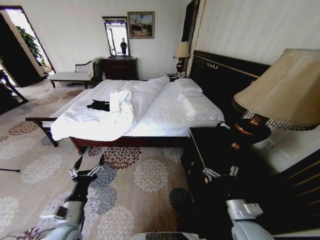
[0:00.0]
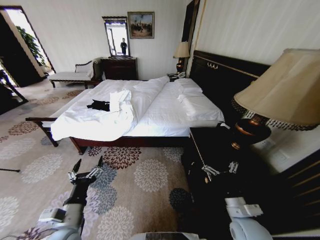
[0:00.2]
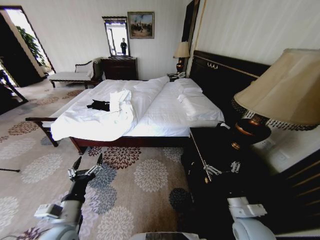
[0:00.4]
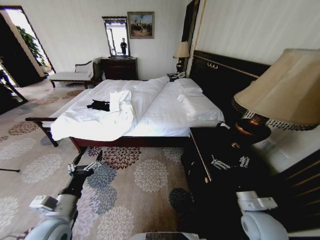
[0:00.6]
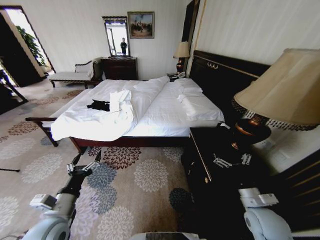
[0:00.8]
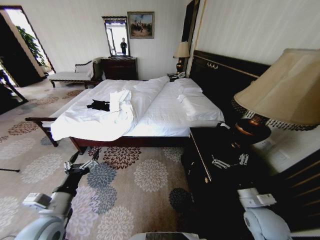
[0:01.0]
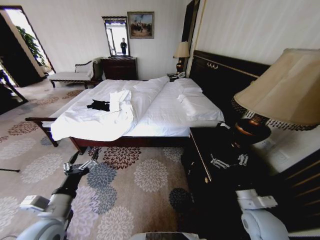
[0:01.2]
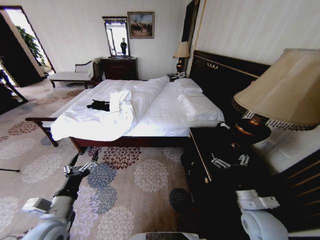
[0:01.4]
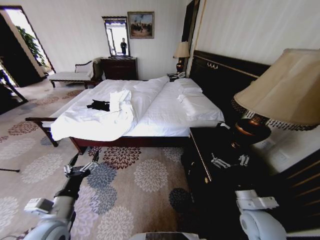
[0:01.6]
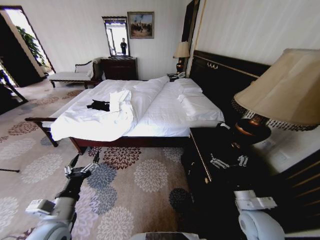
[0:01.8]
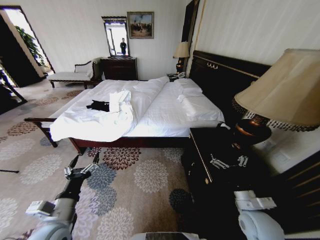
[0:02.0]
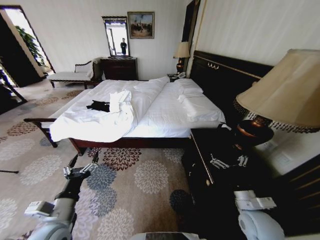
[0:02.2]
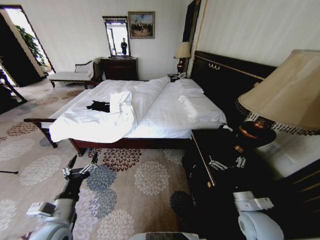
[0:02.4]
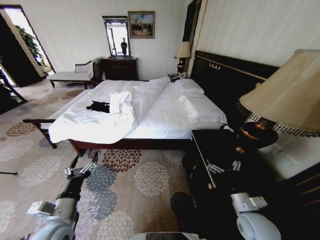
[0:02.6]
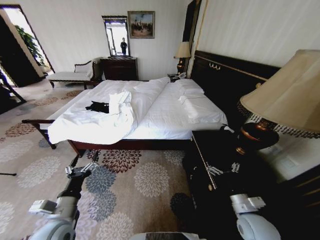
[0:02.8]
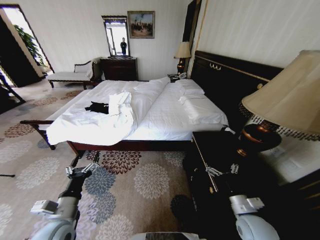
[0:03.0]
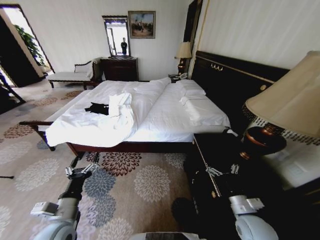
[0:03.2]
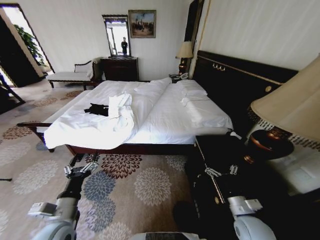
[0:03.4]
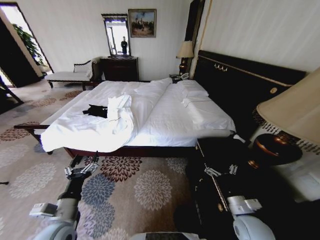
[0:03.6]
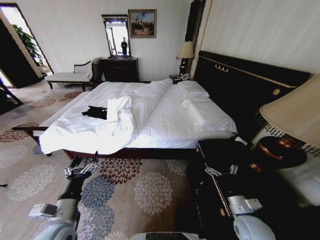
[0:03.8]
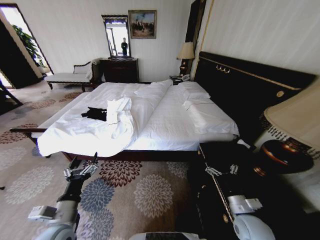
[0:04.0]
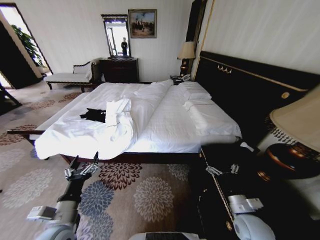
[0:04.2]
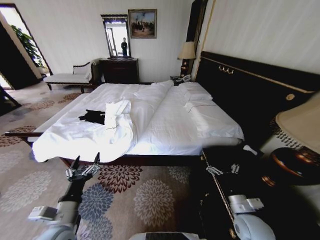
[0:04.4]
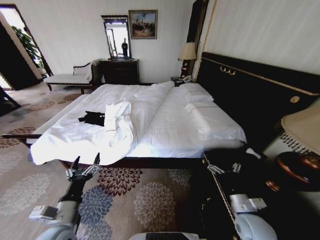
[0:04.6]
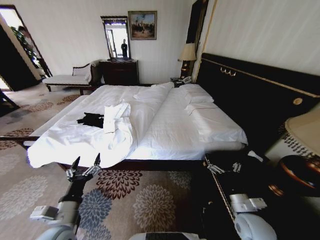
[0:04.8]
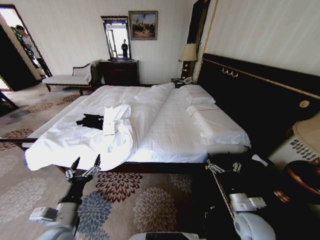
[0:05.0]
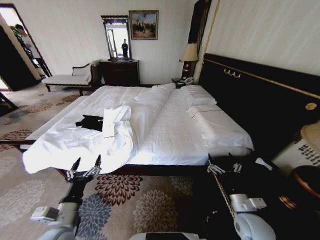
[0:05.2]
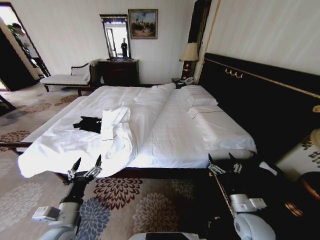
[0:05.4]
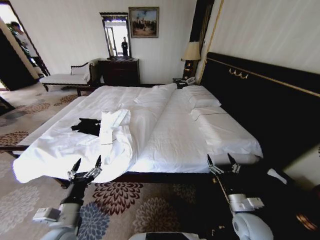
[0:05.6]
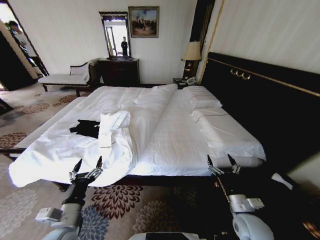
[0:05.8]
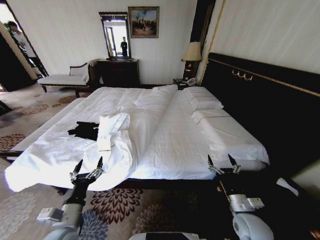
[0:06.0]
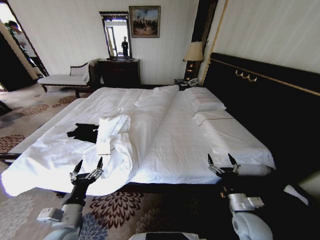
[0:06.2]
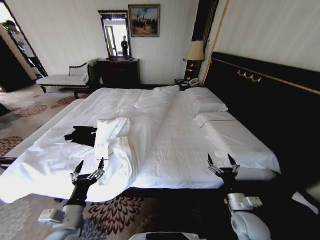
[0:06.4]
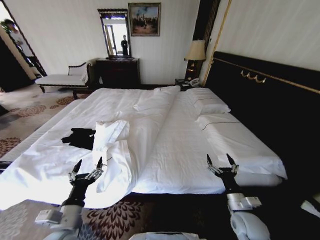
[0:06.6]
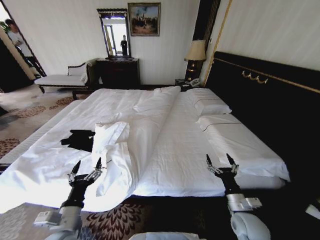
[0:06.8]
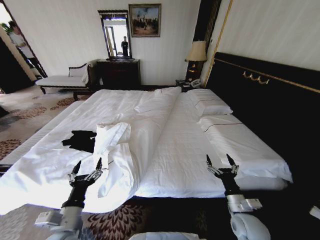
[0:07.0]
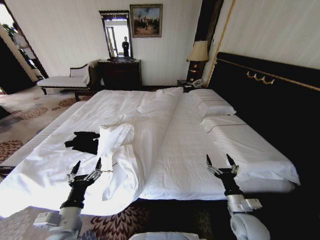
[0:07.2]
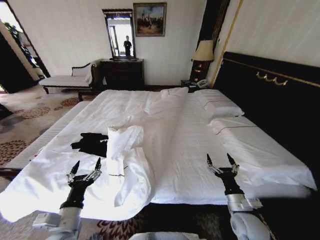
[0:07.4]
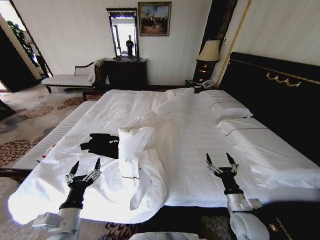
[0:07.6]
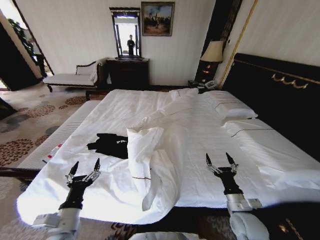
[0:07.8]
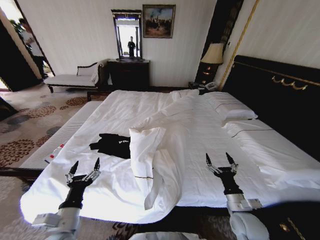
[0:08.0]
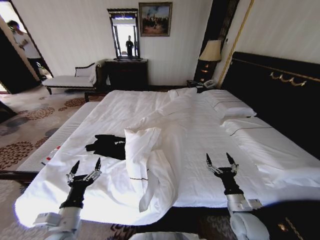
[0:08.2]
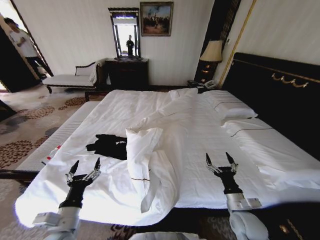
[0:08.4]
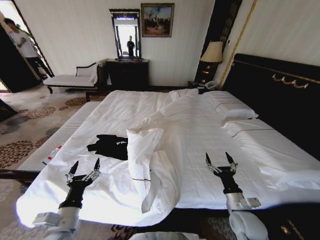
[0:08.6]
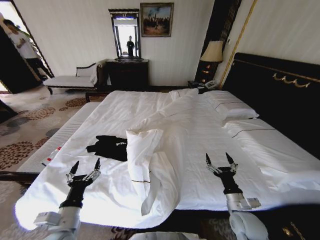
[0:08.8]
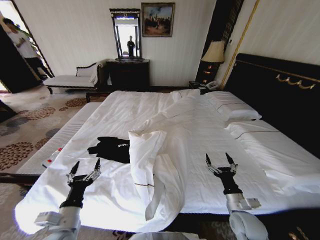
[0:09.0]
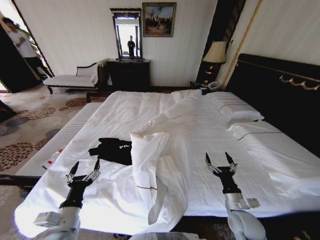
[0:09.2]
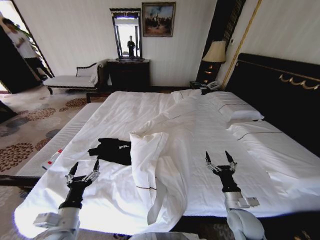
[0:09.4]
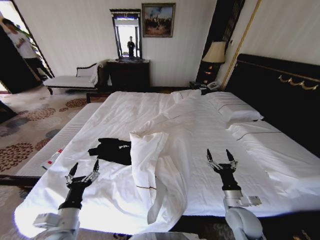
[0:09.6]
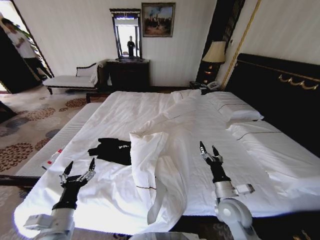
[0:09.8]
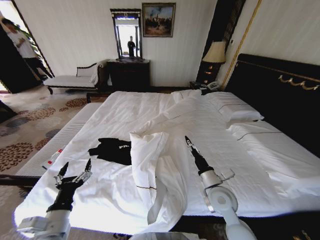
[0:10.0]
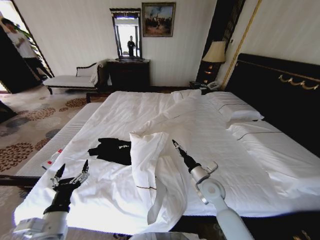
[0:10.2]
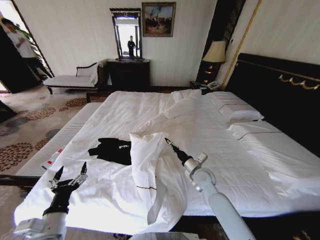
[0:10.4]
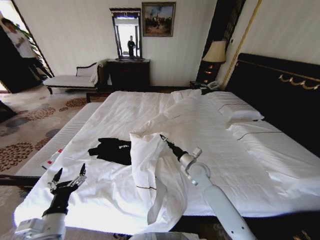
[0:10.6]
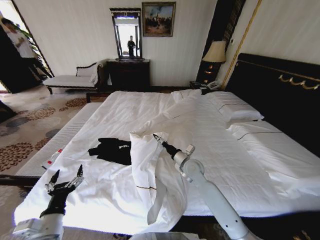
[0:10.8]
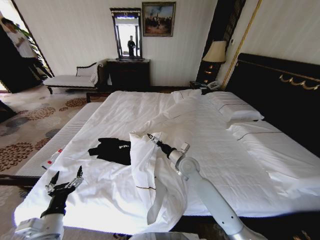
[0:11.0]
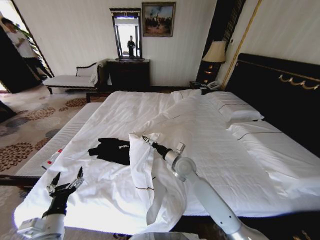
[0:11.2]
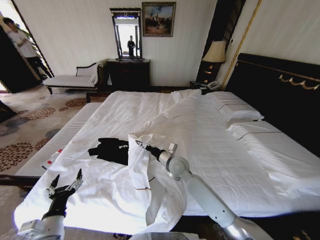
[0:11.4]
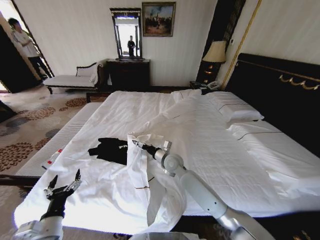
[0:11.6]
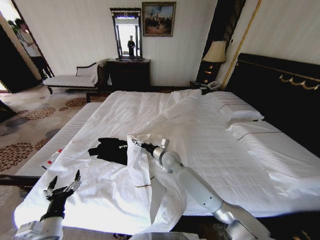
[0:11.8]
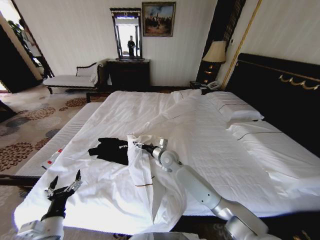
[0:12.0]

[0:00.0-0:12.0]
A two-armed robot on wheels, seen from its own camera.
Task of the whole recording: Fold the clothes on the bed.
0:09.0 to 0:10.4: The right gripper shifts about 20 cm forward and to the left.
0:10.4 to 0:12.0: The right gripper is displaced to the left and forward by approximately 15 cm.

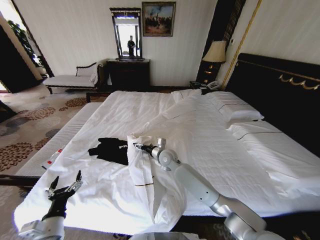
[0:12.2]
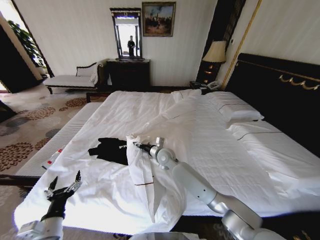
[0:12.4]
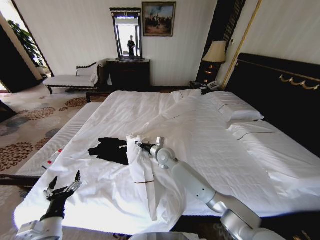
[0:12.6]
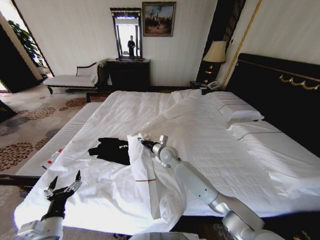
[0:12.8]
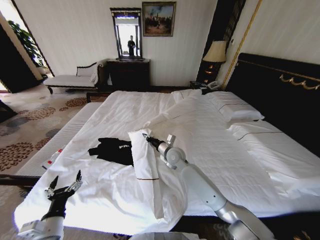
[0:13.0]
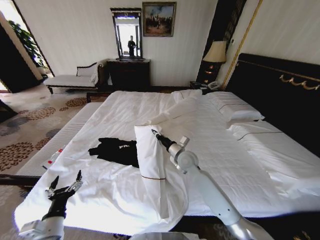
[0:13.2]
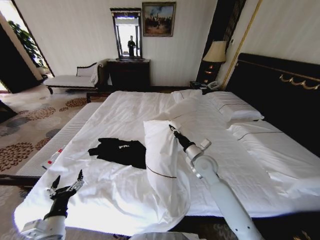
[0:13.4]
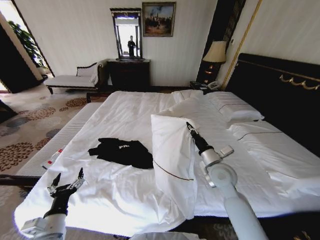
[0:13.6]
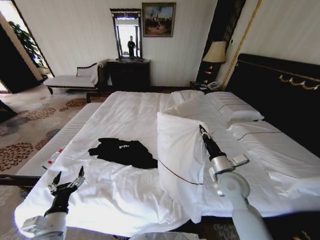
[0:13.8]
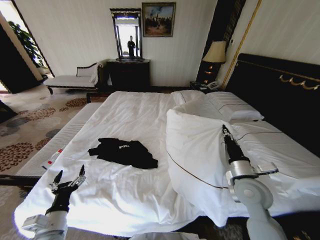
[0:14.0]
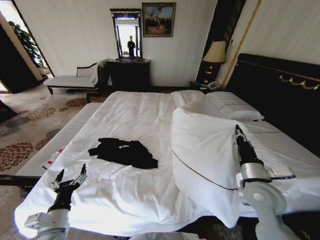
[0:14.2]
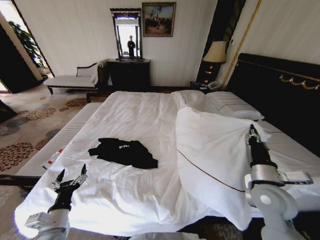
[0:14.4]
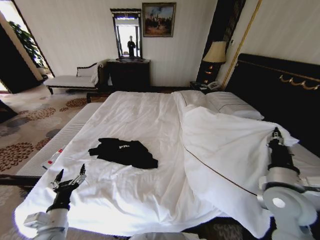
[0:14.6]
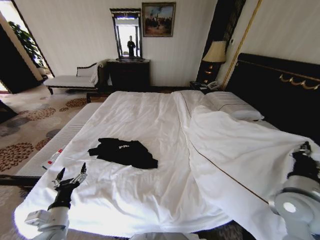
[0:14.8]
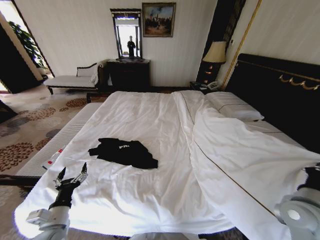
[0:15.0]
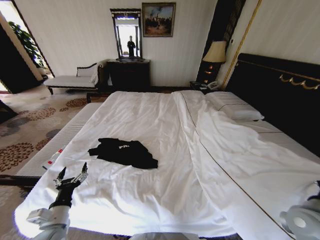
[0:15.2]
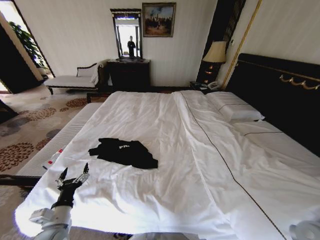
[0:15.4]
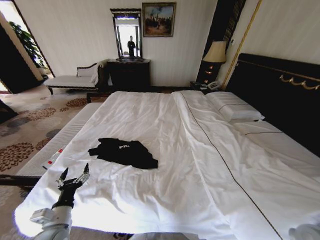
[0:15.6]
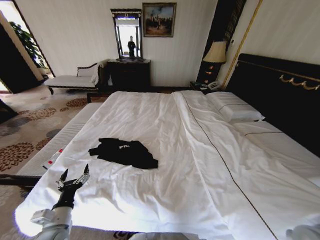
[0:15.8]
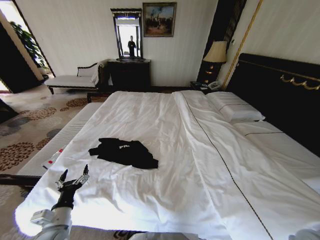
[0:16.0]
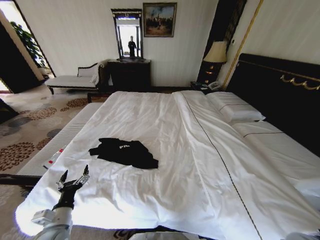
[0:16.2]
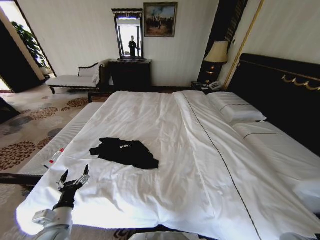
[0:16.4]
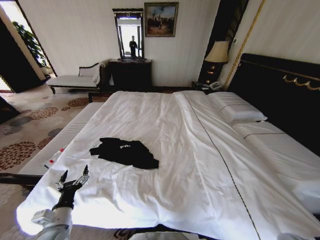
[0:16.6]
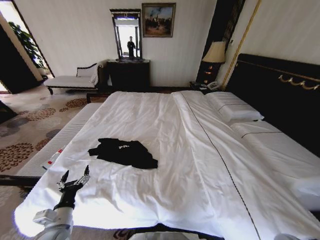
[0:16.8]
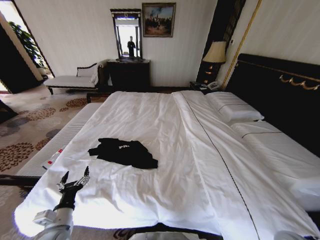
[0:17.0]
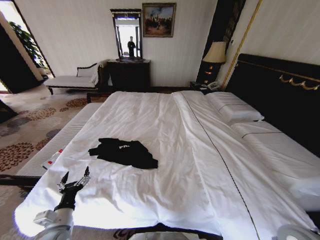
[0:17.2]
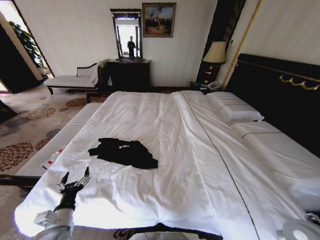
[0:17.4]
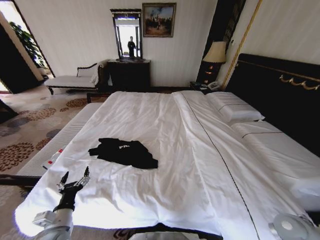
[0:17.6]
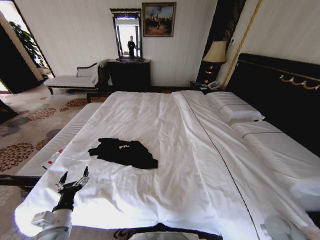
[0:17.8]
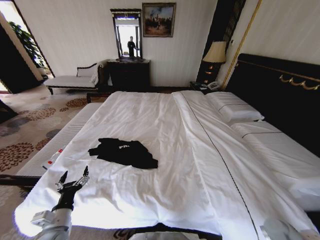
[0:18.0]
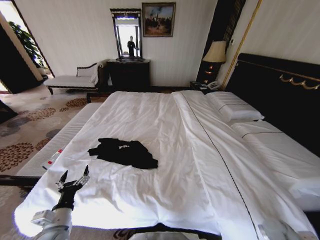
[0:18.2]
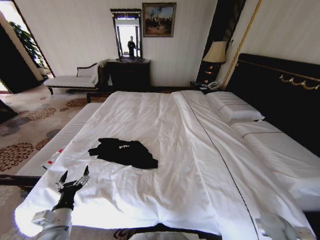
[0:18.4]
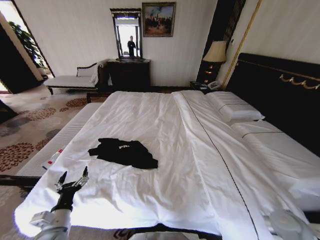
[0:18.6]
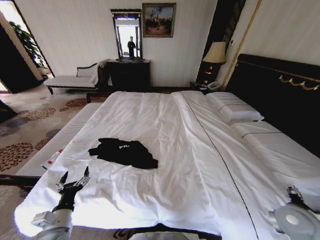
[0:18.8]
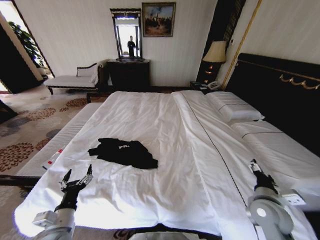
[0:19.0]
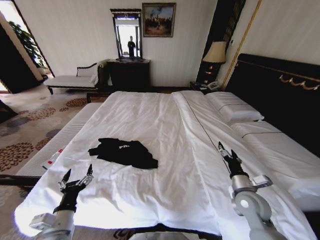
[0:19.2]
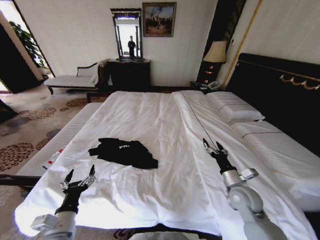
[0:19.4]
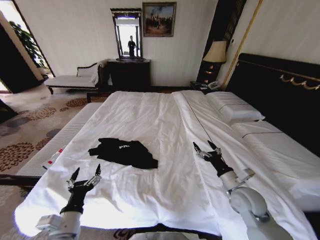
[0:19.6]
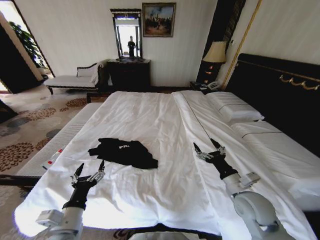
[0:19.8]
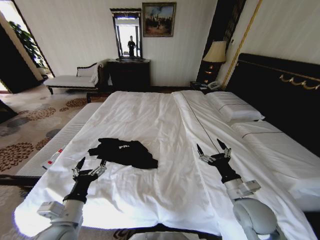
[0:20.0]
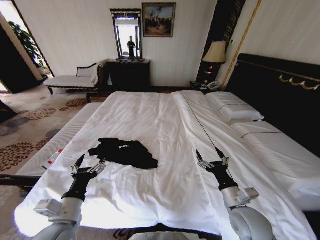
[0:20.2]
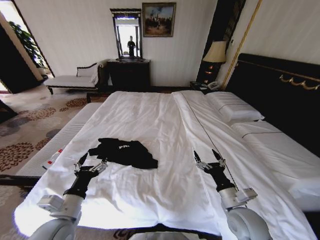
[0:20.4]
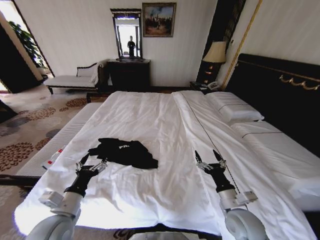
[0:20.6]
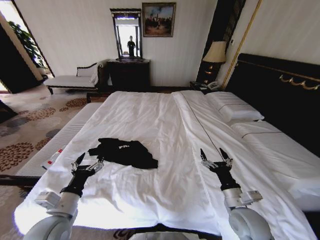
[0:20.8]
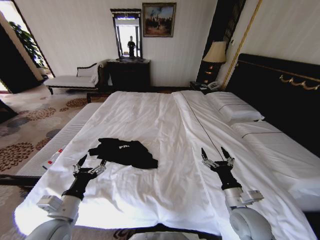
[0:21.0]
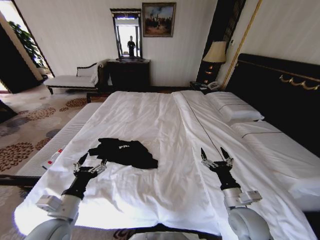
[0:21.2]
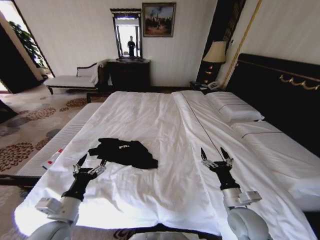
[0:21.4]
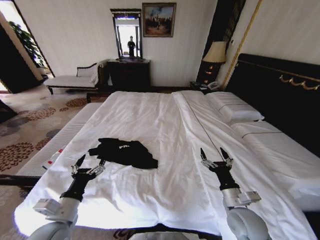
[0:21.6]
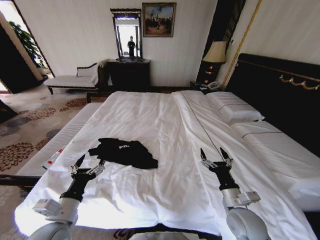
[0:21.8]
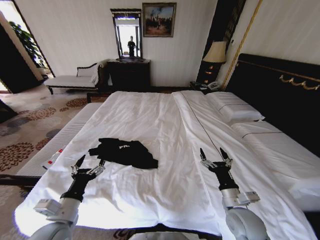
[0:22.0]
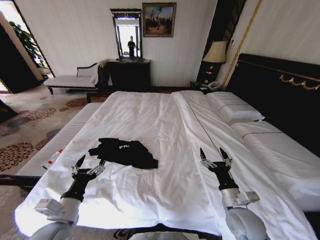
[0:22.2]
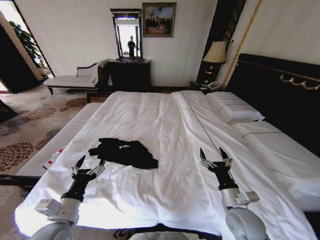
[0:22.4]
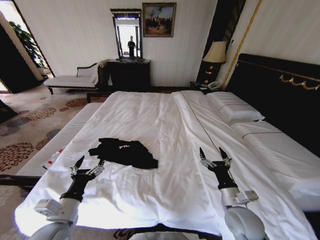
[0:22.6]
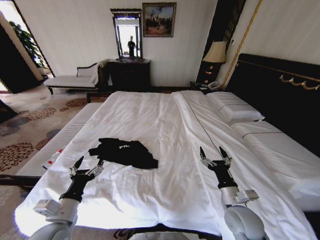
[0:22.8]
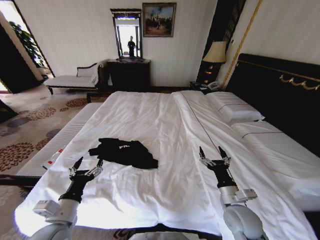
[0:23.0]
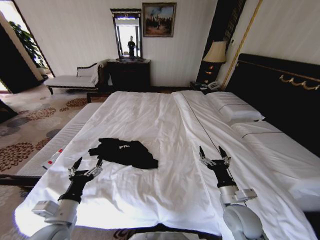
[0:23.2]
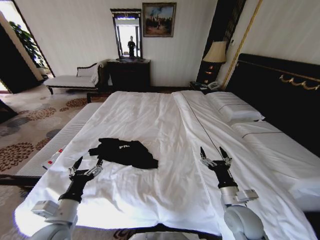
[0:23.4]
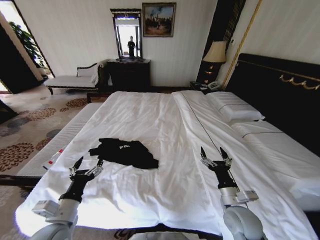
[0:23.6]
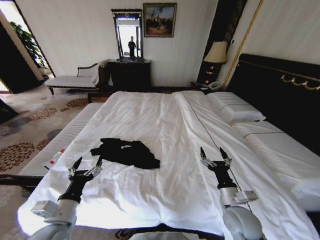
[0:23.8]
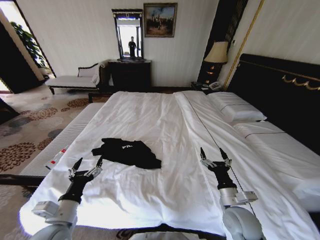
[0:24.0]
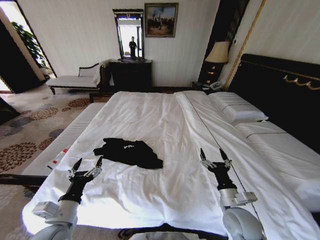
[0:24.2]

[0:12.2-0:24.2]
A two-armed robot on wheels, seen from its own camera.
Task of the whole recording: Fold the clothes on the bed.
0:12.2 to 0:13.8: The right gripper heads to the right and backward, covering some 25 cm, and closes.
0:13.8 to 0:15.2: The right gripper heads to the right and backward, covering approximately 20 cm.
0:15.2 to 0:16.6: The right gripper travels downward by approximately 15 cm.
0:16.6 to 0:18.2: The right gripper moves forward, some 5 cm, goes upward and returns, about 15 cm each way, and opens.
0:18.2 to 0:19.8: The left gripper goes about 10 cm to the right and upward, while the right gripper goes some 25 cm to the left and upward.
0:19.8 to 0:21.2: The right gripper moves about 5 cm.
0:21.2 to 0:22.6: Neither gripper changes place.
0:22.6 to 0:24.2: Neither gripper changes place.
